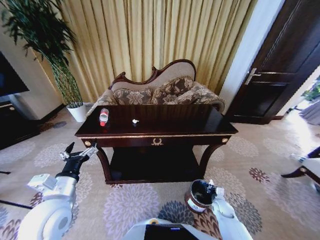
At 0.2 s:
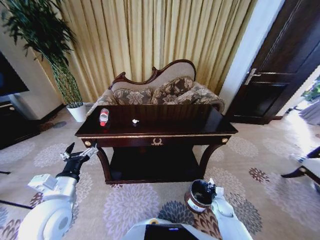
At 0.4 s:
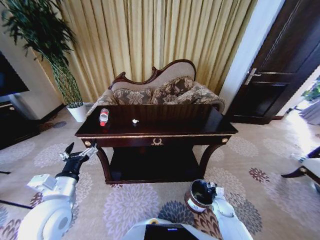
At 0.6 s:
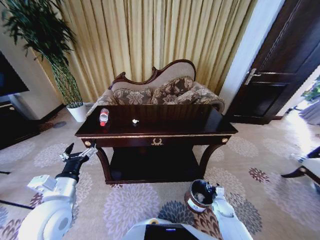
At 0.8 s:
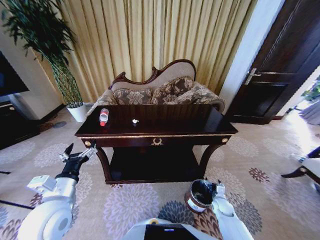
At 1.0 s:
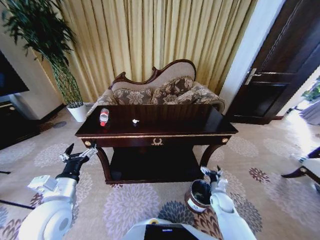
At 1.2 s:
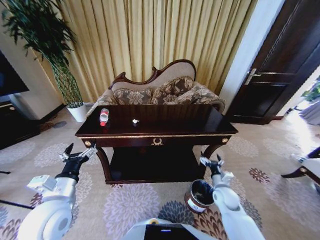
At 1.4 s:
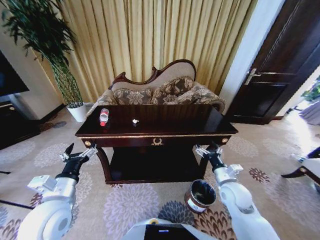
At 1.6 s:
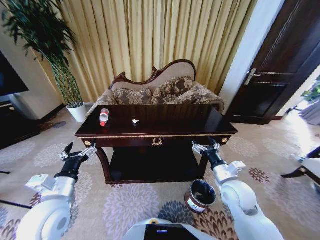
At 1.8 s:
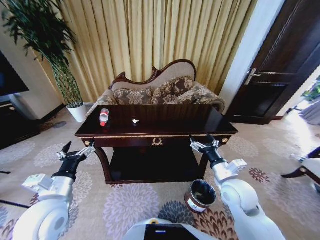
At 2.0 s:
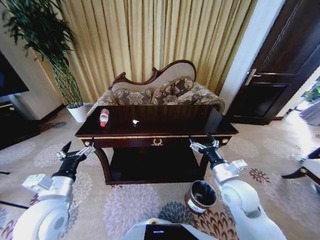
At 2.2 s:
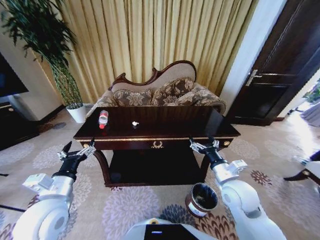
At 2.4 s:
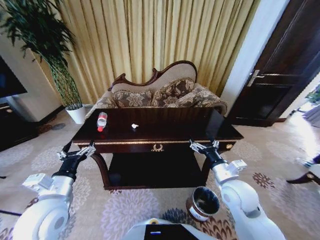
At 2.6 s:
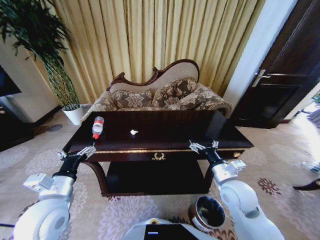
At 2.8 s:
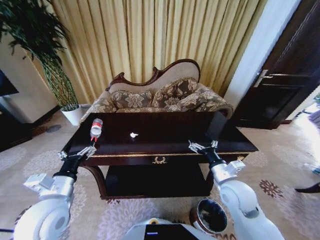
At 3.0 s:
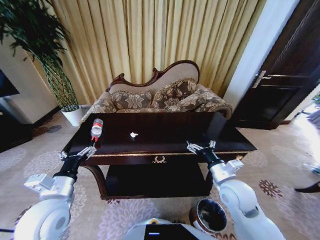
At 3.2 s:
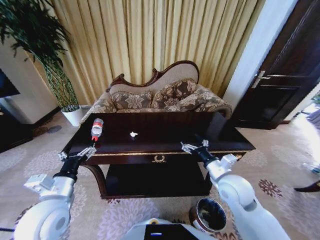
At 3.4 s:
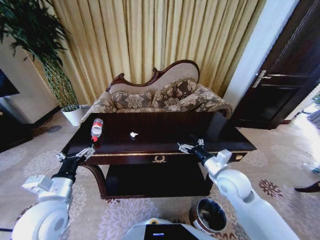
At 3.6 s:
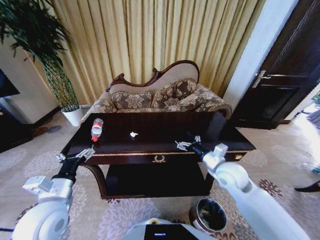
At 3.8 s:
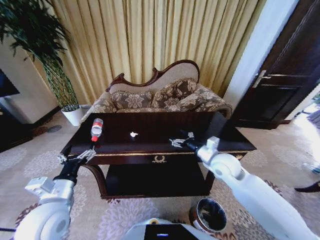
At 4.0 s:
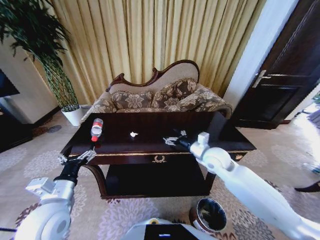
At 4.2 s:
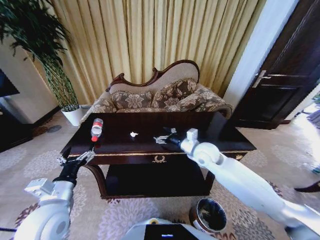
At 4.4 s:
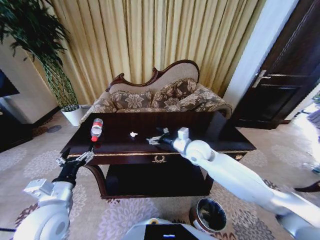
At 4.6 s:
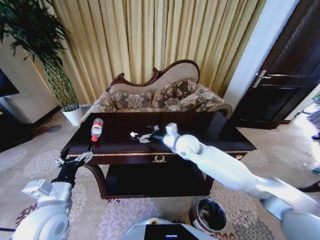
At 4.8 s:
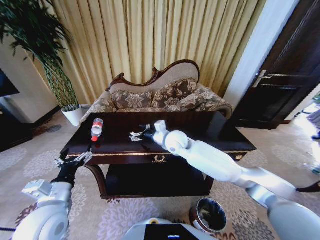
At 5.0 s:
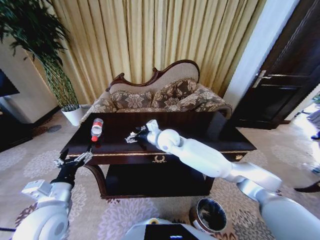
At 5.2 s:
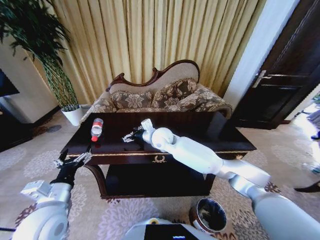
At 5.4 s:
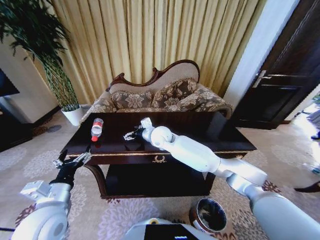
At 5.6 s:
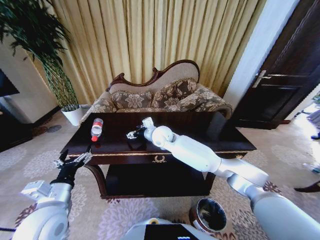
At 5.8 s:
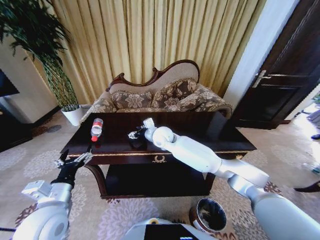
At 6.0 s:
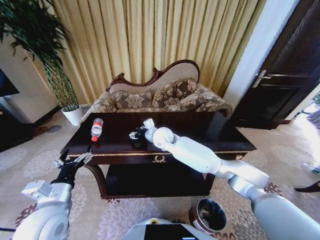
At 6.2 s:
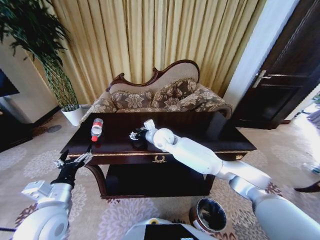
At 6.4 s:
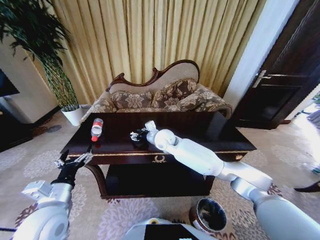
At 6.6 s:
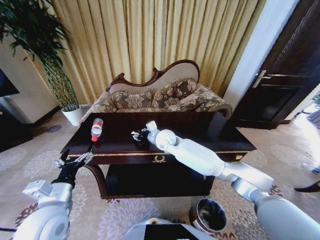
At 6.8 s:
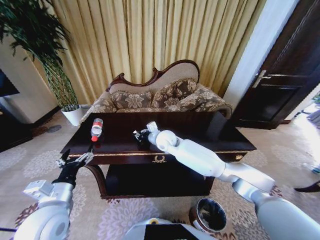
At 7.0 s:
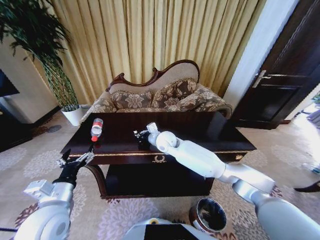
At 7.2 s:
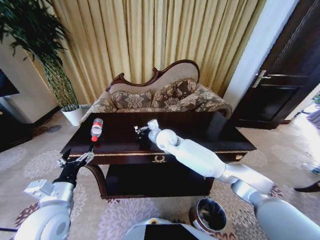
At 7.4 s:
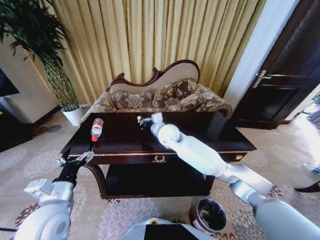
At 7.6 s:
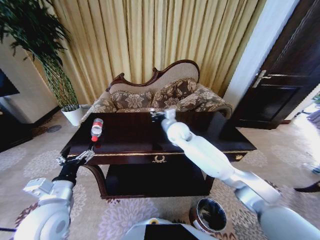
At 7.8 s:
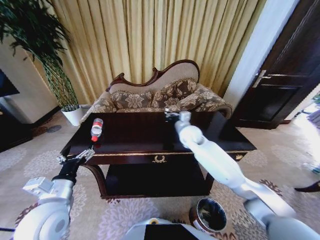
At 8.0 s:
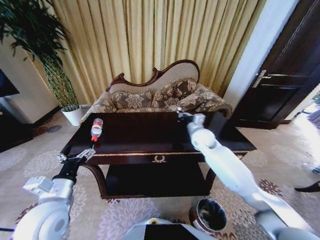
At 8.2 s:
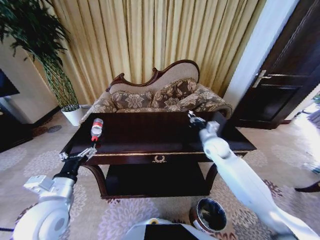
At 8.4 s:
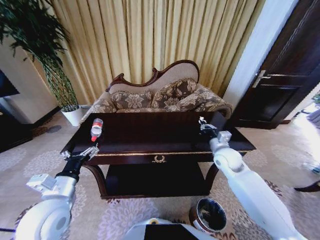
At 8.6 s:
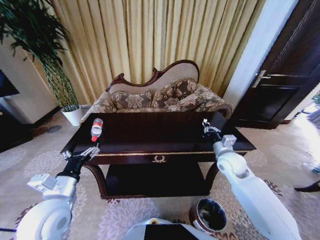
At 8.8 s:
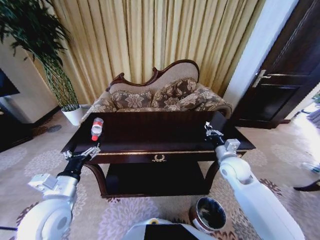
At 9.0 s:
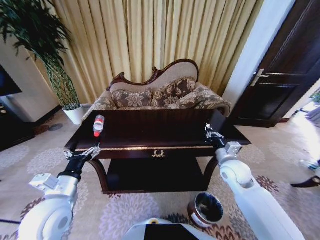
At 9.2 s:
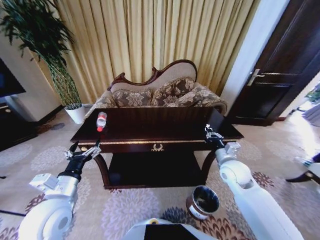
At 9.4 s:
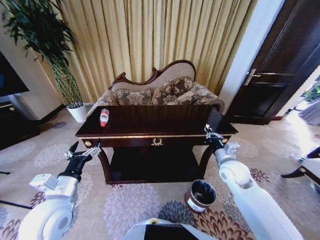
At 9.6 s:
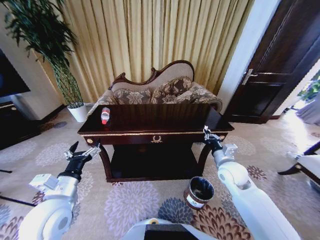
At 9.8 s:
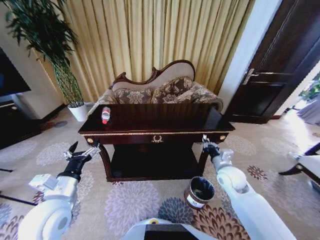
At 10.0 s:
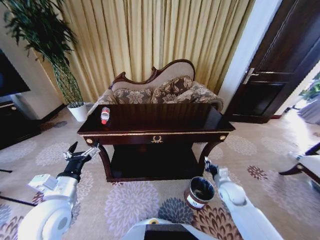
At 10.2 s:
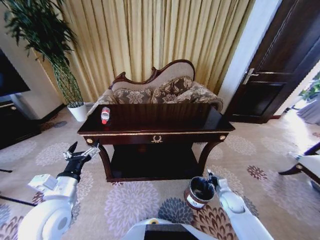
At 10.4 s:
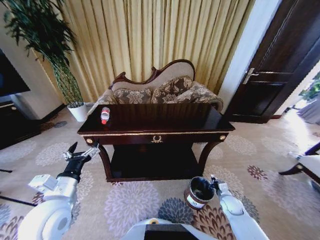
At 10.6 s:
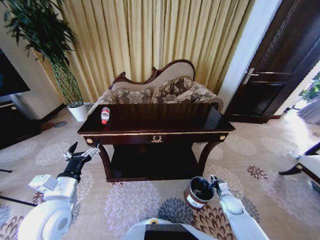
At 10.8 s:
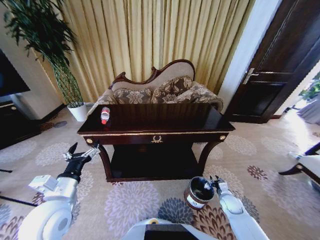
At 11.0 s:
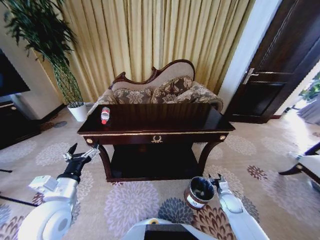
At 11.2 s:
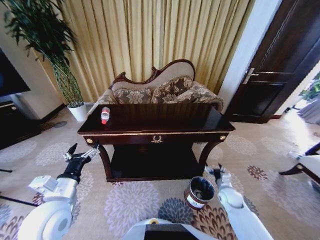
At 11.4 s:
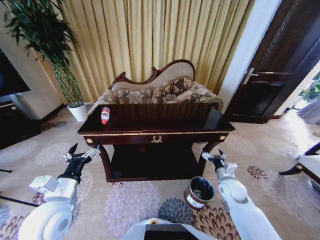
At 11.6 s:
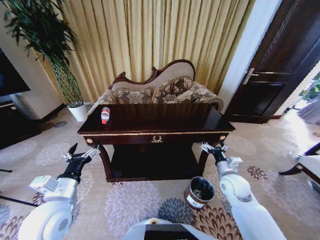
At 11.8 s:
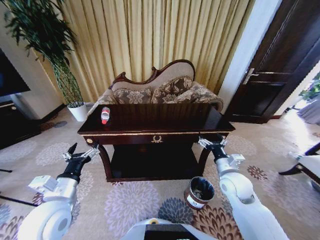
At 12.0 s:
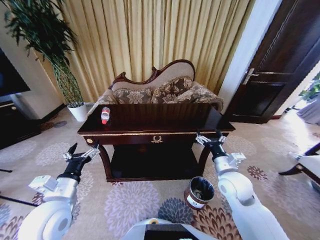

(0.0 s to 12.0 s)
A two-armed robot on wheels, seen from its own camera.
Task of the whole recording: Move to the front of the table and place the trash on the table into the trash bin.
0.0 s - 1.6 s: The right gripper shifts some 30 cm upward, and opens up.
3.0 s - 4.4 s: The right gripper shifts some 20 cm forward and to the left.
4.4 s - 6.0 s: The right gripper is displaced to the left and forward by some 15 cm.
6.0 s - 7.6 s: The right gripper is displaced to the right by roughly 5 cm, and closes its fingers.
7.6 s - 9.0 s: The right gripper shifts approximately 25 cm to the right and backward.
9.0 s - 10.4 s: The right gripper travels downward by some 25 cm.
10.4 s - 12.0 s: The right gripper shifts roughly 30 cm upward and to the left, and opens its fingers.

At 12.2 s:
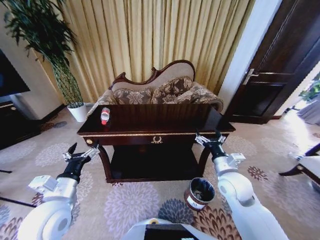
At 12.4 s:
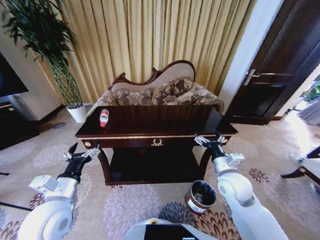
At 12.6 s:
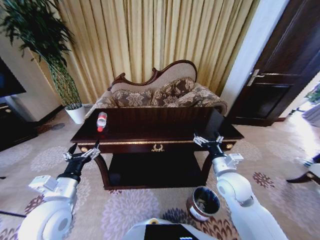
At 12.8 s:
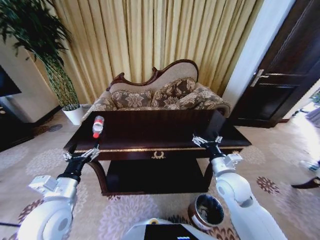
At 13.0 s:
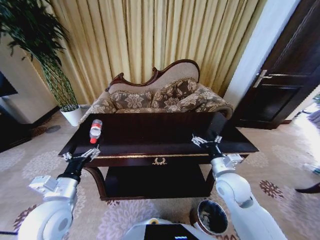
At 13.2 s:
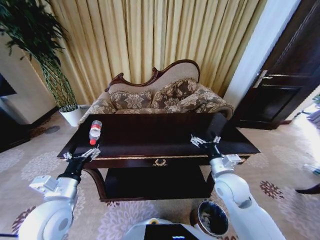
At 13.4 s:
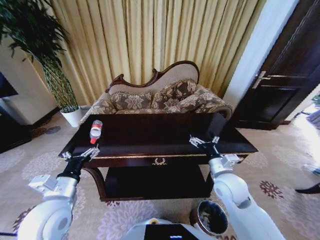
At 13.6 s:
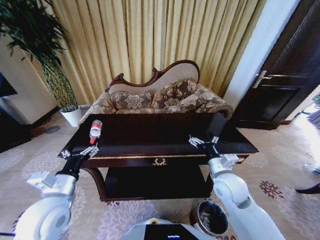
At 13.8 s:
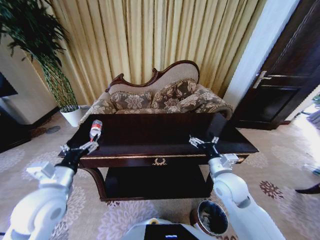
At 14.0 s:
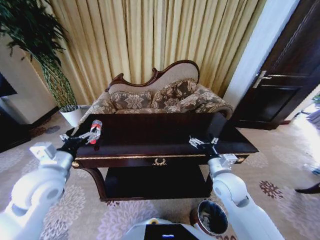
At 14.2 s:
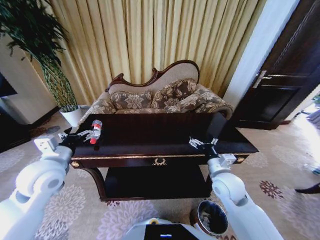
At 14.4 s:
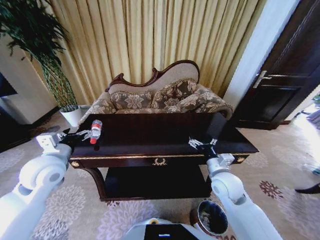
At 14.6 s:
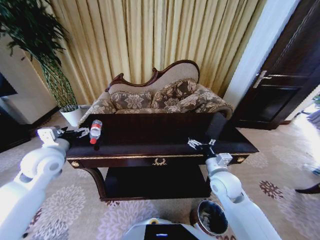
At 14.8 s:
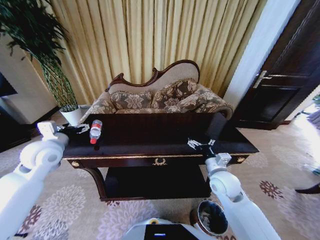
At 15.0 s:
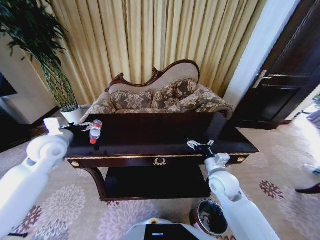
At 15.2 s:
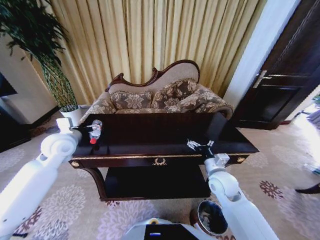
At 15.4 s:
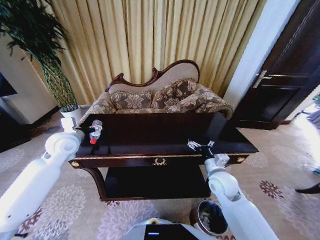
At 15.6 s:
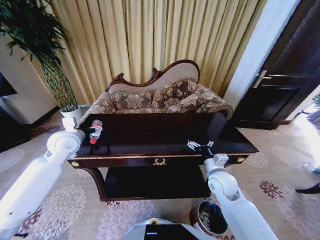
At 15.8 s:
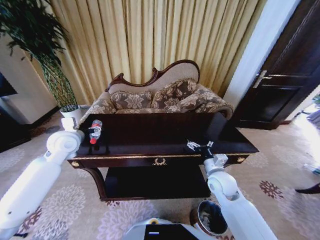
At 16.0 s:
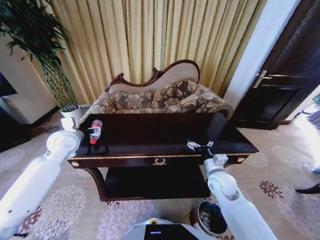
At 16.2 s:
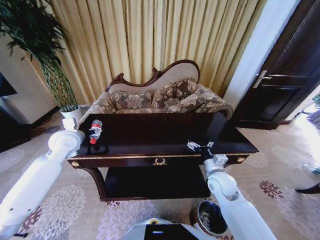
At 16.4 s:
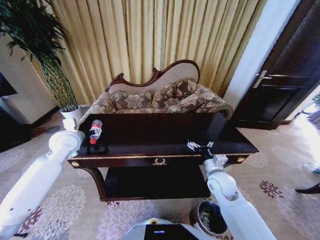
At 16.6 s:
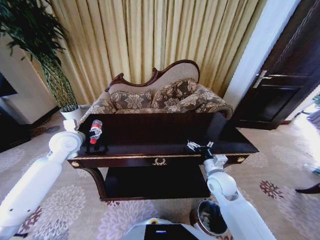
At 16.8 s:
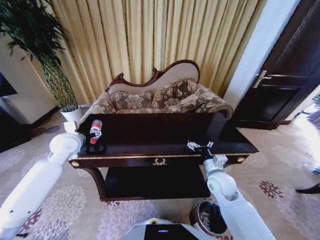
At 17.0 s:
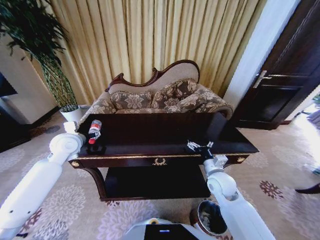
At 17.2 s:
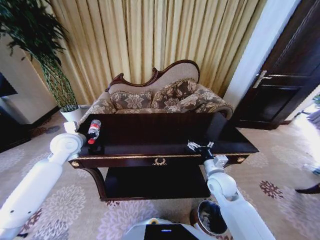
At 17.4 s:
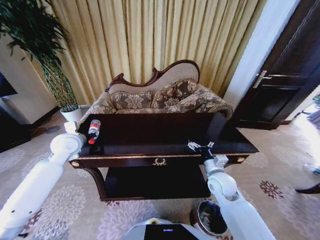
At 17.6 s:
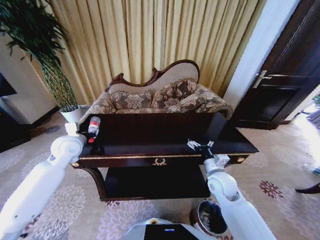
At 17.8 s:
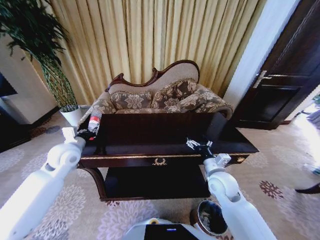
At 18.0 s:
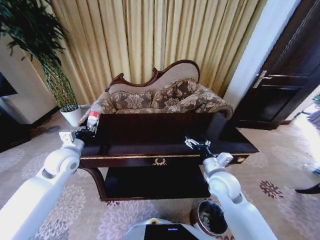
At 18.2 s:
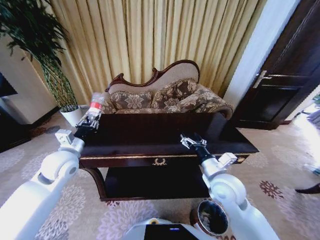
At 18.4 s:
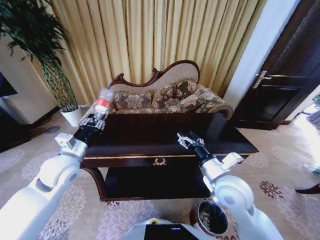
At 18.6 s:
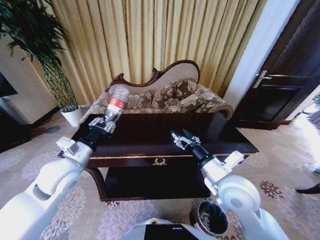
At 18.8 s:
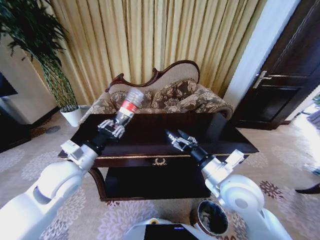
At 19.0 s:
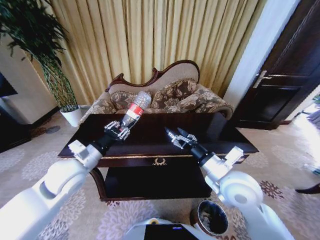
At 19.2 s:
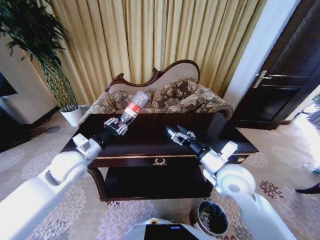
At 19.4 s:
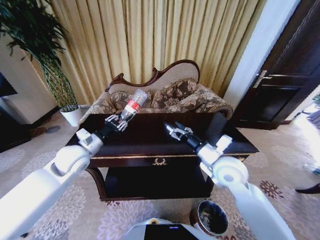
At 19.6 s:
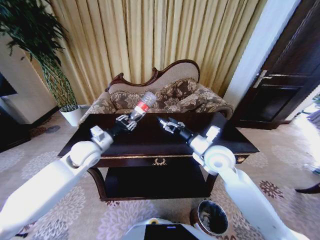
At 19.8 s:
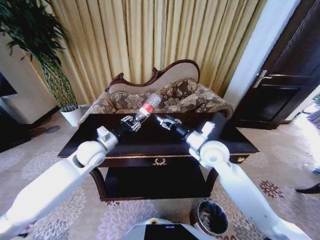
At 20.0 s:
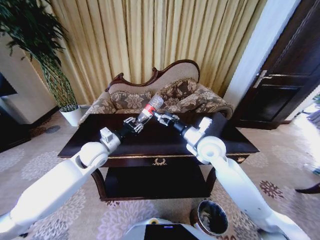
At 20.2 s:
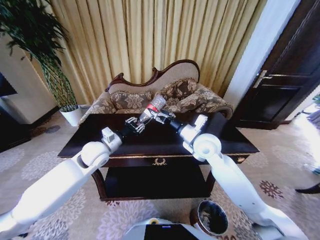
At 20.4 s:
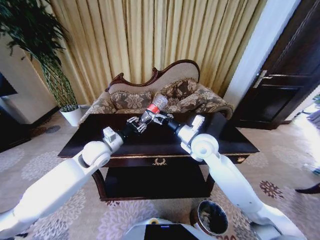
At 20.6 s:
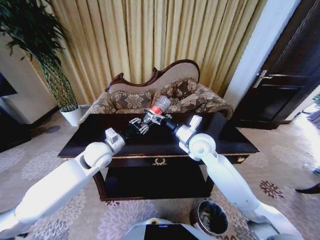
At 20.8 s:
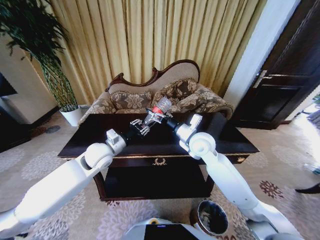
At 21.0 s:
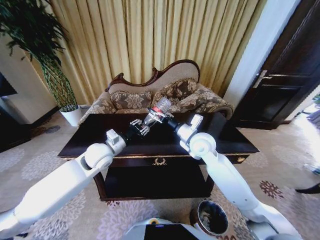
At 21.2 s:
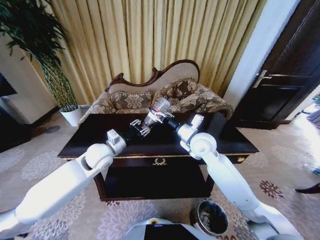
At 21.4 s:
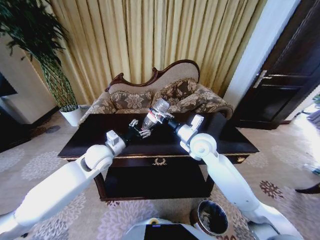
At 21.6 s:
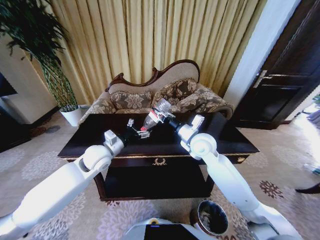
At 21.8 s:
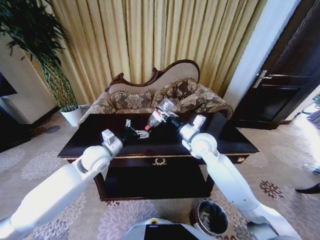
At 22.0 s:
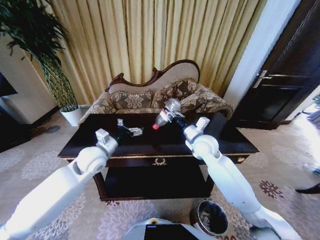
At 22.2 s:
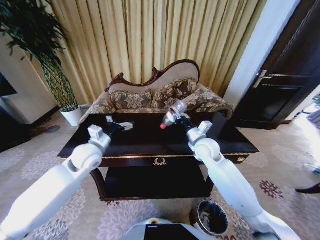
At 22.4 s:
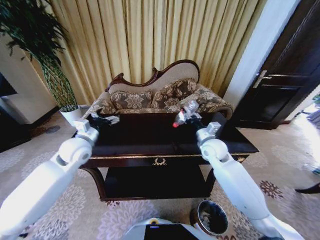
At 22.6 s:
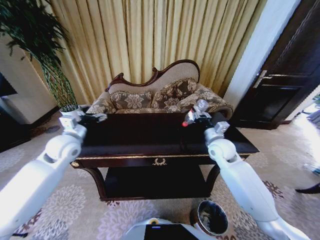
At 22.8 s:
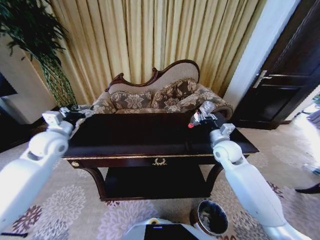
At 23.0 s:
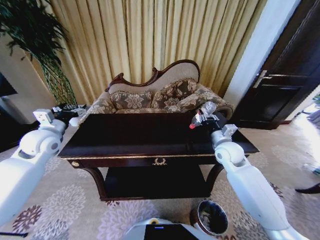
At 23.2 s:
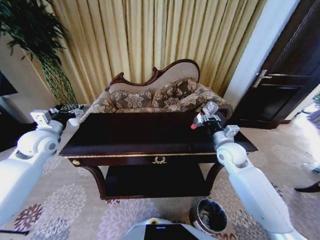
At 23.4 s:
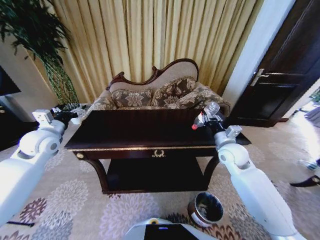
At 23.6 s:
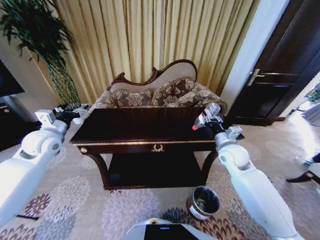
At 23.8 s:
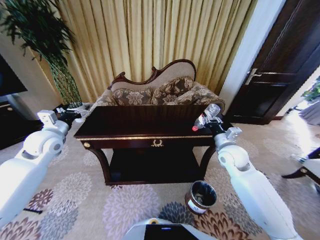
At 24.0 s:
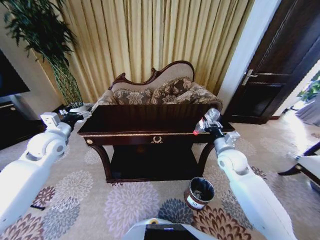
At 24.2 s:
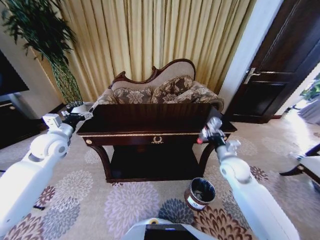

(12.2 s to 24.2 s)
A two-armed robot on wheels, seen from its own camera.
Task of the whole recording: Move to the front of the table and place the trash on the table into the trash bin.
13.8 s - 15.2 s: The left gripper travels forward by approximately 15 cm.
15.2 s - 16.6 s: The grippers make only small movements.
16.6 s - 18.2 s: The left gripper is displaced backward by roughly 10 cm, and closes. Meanwhile the right gripper moves upward, approximately 5 cm.
18.2 s - 19.8 s: The right gripper travels forward and upward by roughly 10 cm. The left gripper moves to the right and forward, about 10 cm.
19.8 s - 21.2 s: The right gripper closes up.
21.2 s - 22.6 s: The left gripper shifts some 10 cm to the left, and opens. Meanwhile the right gripper heads to the right and downward, covering roughly 10 cm.
22.6 s - 24.2 s: The right gripper is displaced backward by roughly 5 cm. The left gripper heads to the left, covering some 5 cm.
